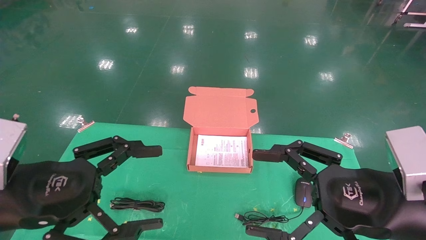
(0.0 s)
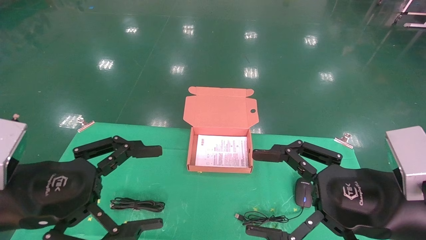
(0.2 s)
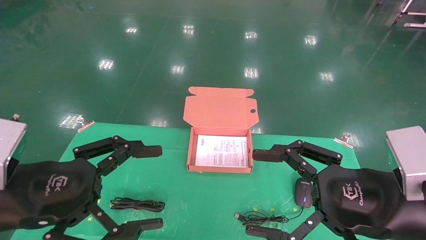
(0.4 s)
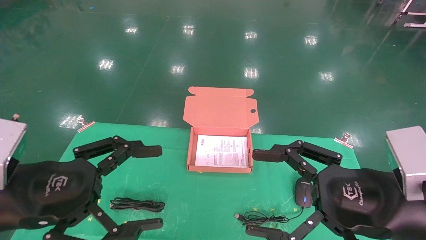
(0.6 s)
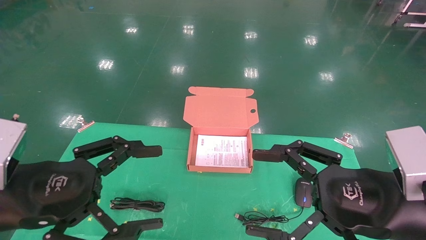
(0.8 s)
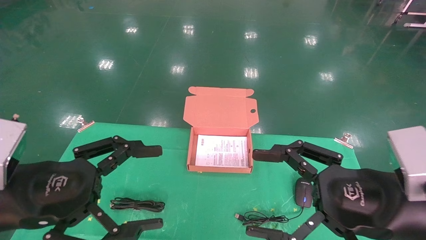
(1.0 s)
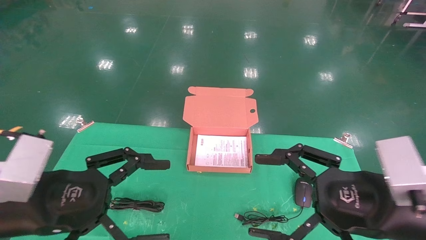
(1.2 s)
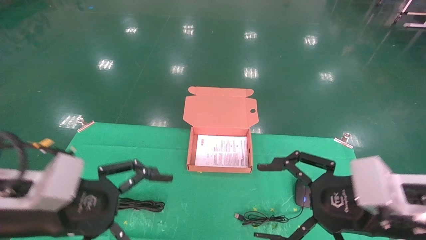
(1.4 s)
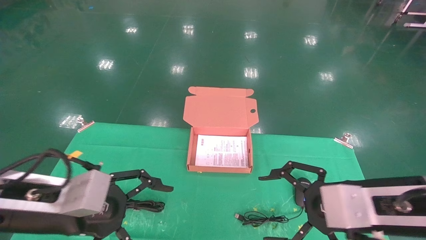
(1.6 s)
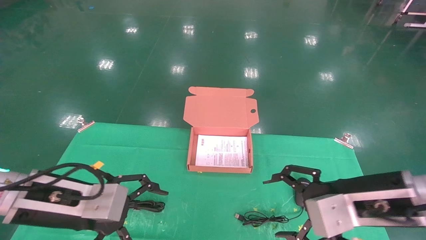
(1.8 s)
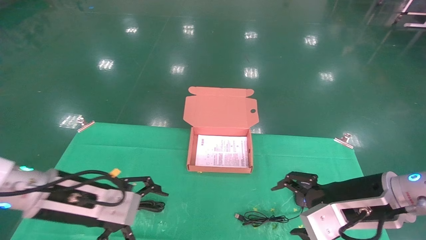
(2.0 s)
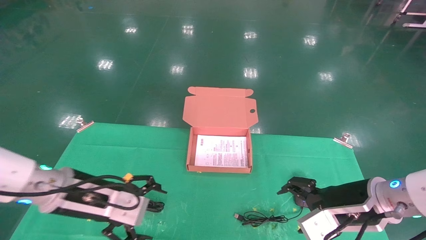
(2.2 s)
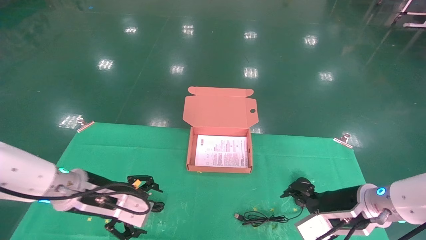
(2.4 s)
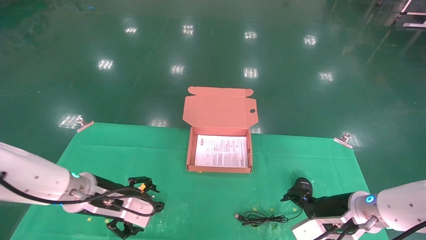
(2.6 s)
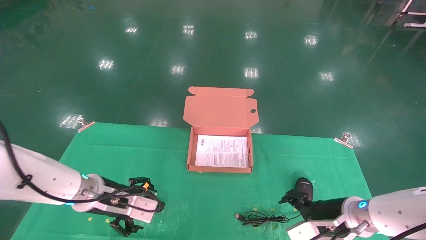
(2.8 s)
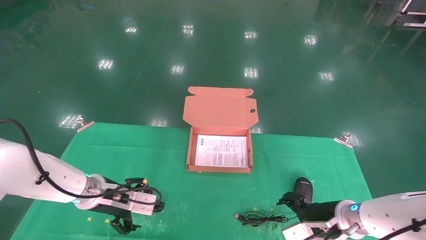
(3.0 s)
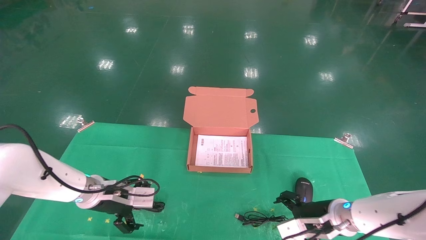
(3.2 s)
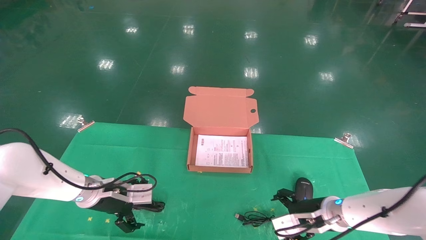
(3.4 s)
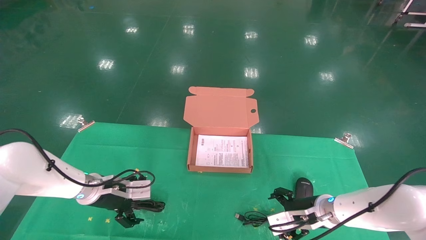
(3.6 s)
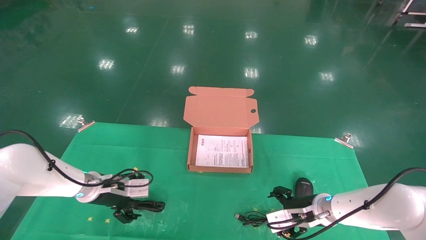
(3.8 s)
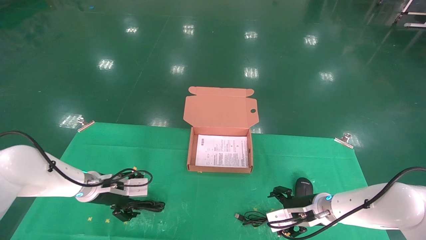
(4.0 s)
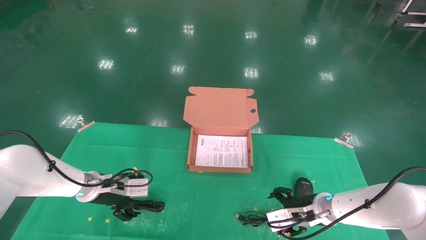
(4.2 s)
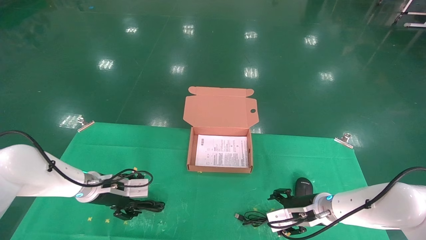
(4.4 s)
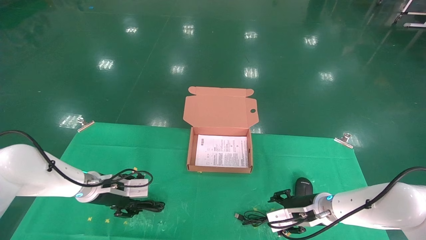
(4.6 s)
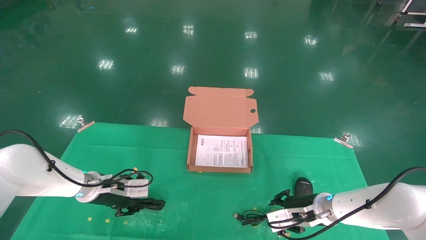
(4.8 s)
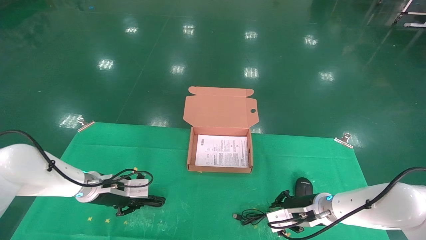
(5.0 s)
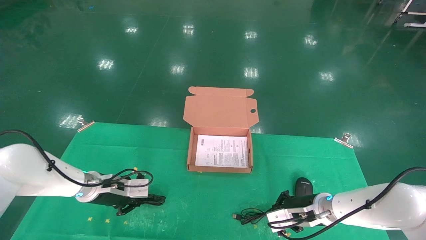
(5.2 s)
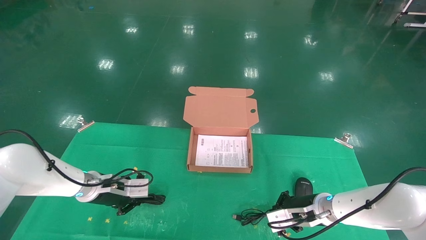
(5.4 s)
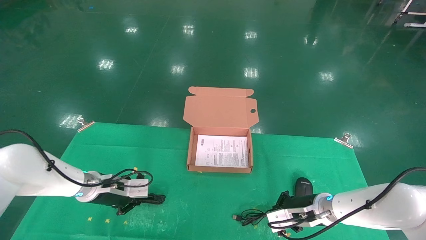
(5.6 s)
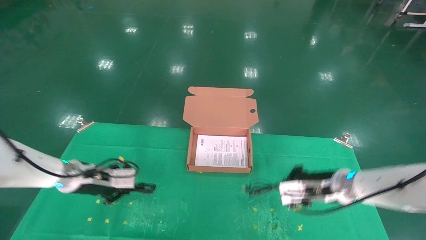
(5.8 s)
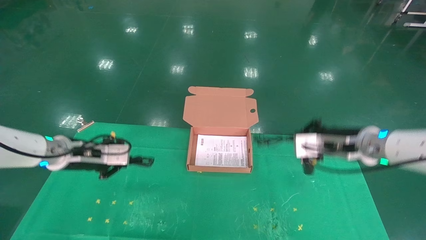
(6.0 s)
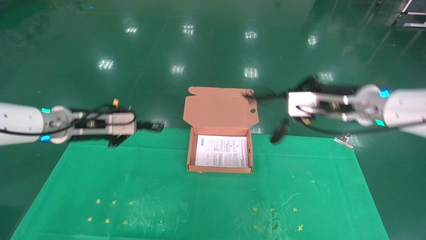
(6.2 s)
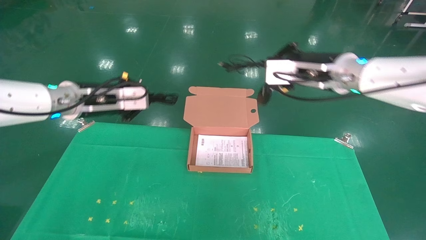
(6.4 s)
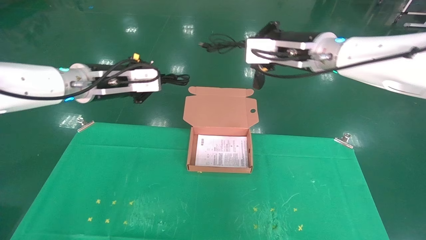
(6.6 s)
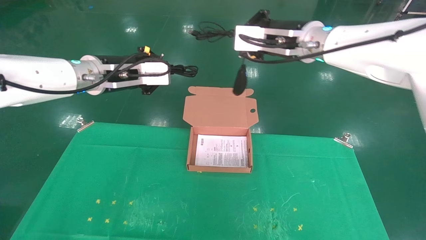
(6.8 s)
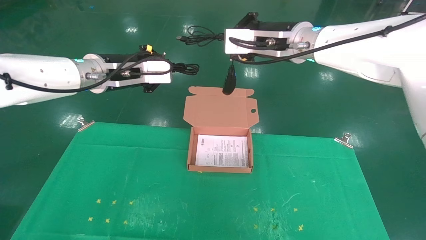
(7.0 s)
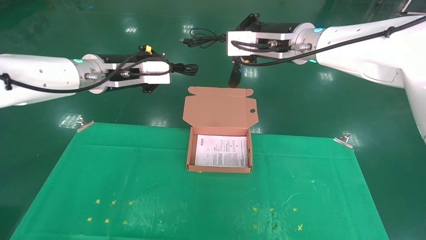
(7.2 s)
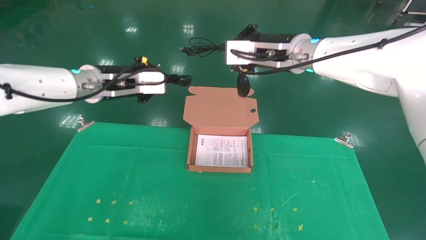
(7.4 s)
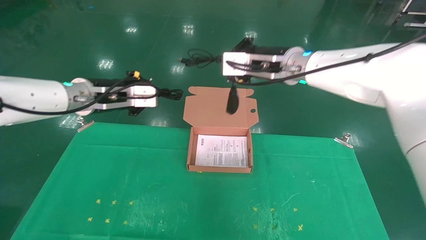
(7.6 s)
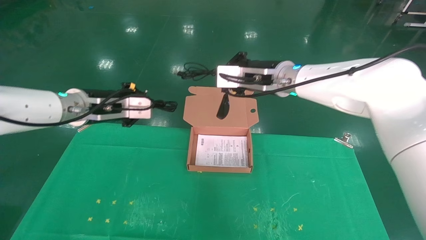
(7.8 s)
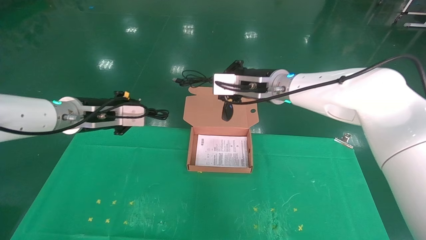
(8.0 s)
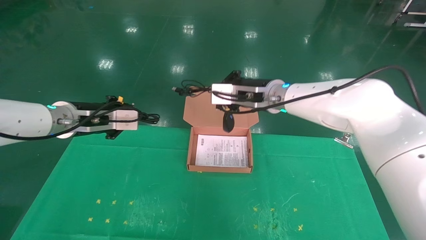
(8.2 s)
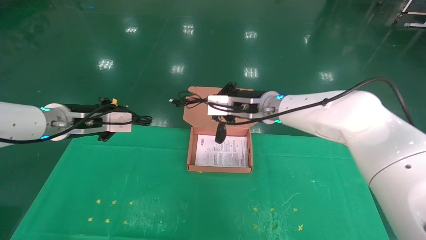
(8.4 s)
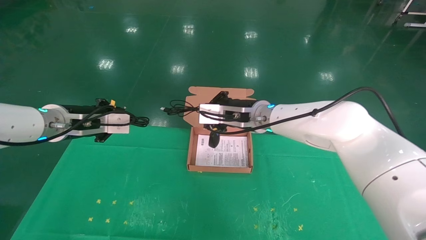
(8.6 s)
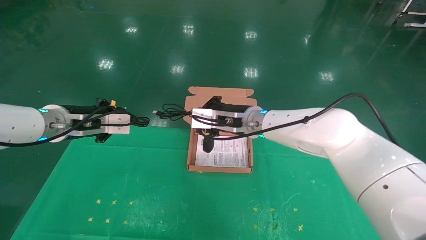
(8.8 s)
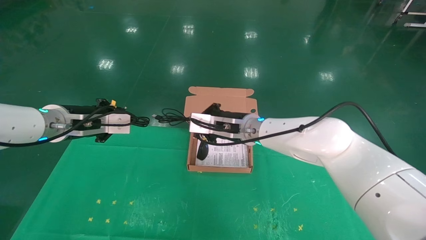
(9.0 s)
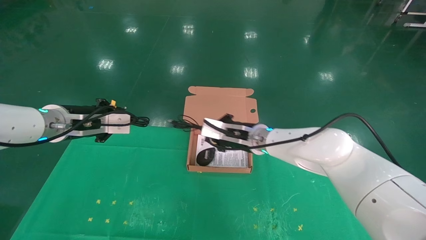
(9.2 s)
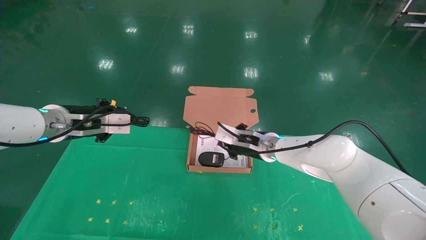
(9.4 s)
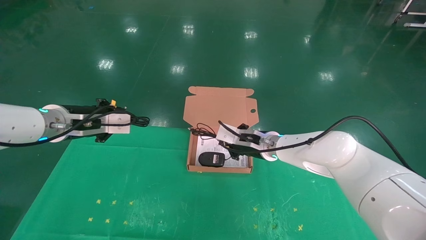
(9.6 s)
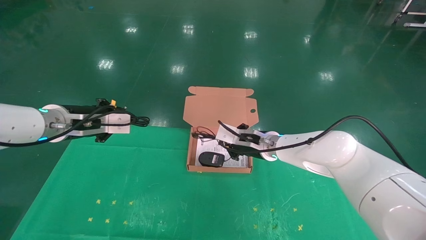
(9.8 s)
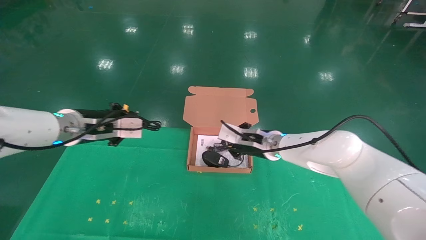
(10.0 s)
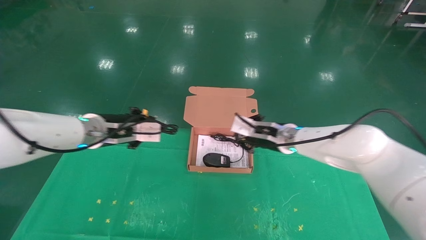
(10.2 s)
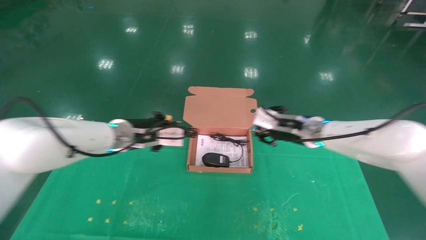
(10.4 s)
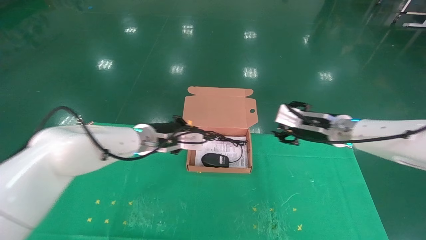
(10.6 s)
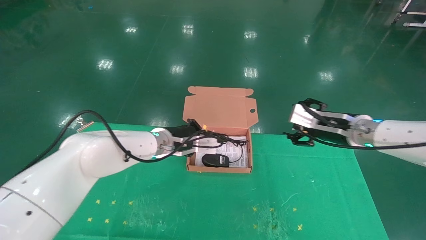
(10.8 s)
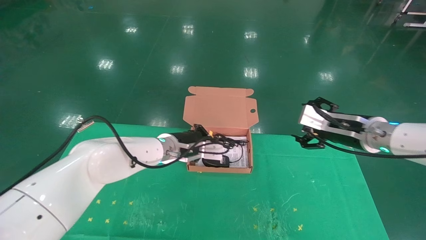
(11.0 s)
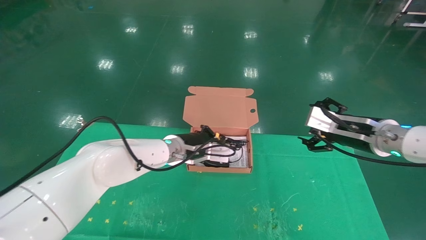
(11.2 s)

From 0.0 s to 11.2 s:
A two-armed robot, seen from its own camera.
Task of the whole recording: grasp data cable left put into box grasp mouse right put into box.
Step, from 1.0 s to 6.0 s: Grab and pick up both the mouse and power cord from the accessory packaging area at the same time.
From 0.0 s to 1.6 s: The left gripper shifts by roughly 5 cm.
From 1.6 s to 3.2 s: The right gripper moves downward and forward, roughly 20 cm, while the left gripper travels forward and downward by some 20 cm.
From 3.2 s to 4.8 s: The right gripper changes place by about 5 cm, and closes up. The left gripper ends up approximately 5 cm from where it was, and closes up.
From 4.8 s to 6.4 s: Both grippers move upward, some 25 cm. The left gripper closes. The right gripper closes its fingers.
From 6.4 s to 8.0 s: The right gripper moves to the left, roughly 10 cm.
From 8.0 s to 9.6 s: The right gripper is displaced downward by roughly 15 cm.
From 9.6 s to 11.2 s: The left gripper moves to the right and downward, roughly 20 cm. Meanwhile the right gripper goes approximately 20 cm to the right and backward, and opens its fingers.

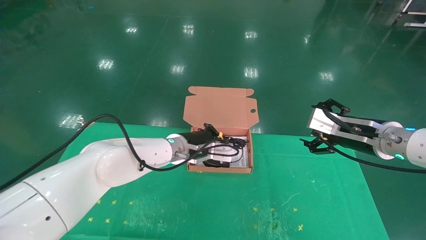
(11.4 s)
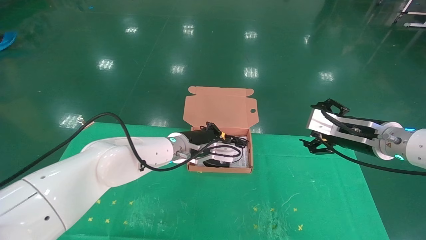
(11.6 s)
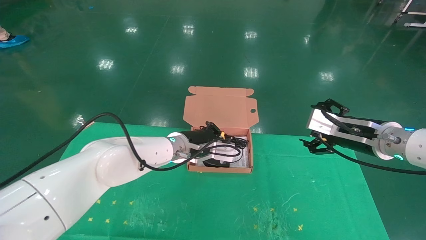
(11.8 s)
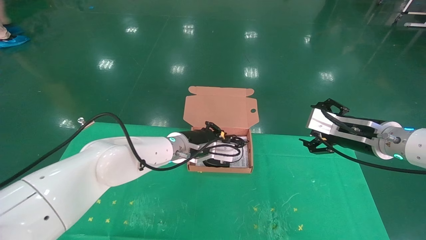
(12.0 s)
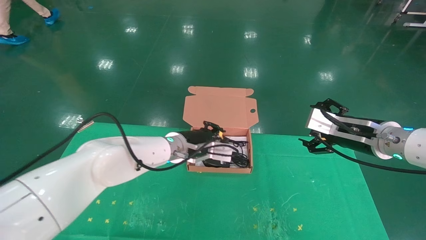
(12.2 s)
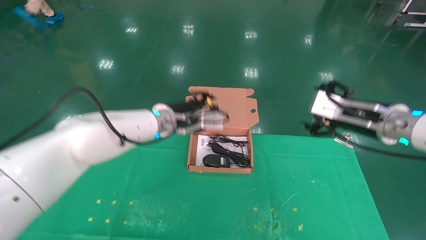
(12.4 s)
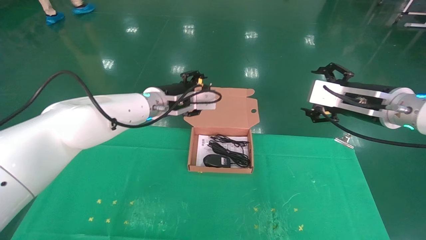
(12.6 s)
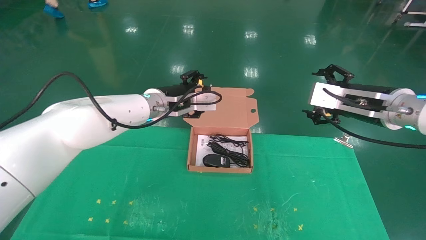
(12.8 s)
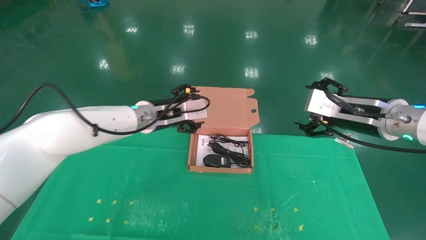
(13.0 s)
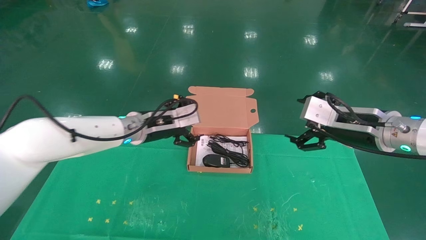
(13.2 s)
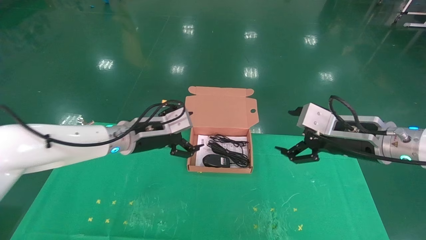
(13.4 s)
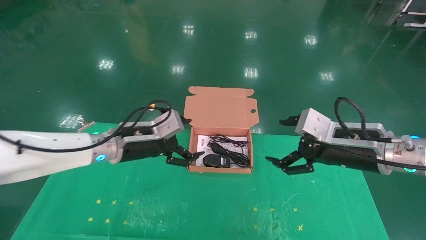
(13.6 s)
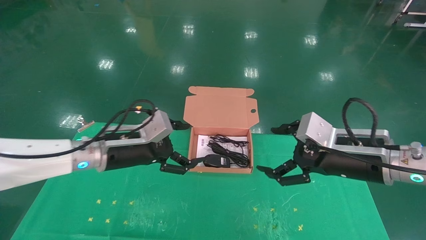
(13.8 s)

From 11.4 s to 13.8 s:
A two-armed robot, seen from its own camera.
Task of the whole recording: grasp data cable left put into box grasp mouse right put into box.
From 11.4 s to 12.6 s: The left gripper goes about 10 cm upward, and opens up. The right gripper is displaced upward by approximately 5 cm.
From 12.6 s to 13.8 s: The right gripper shifts some 10 cm downward and backward. Meanwhile the left gripper shifts about 15 cm to the left, backward and downward, and opens its fingers.
